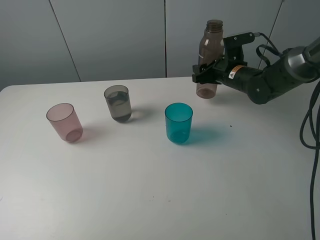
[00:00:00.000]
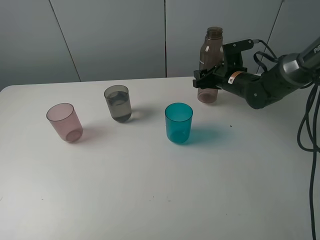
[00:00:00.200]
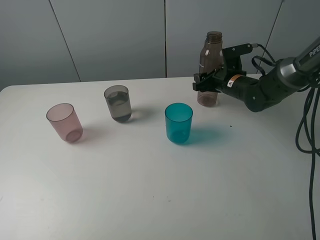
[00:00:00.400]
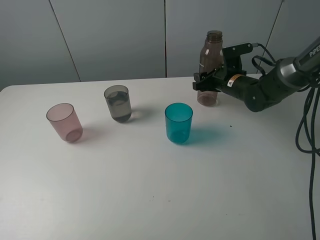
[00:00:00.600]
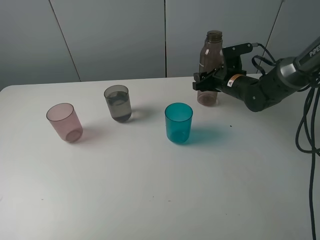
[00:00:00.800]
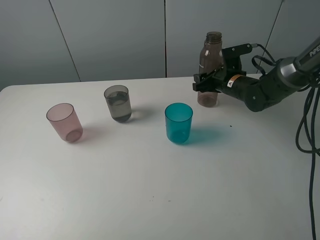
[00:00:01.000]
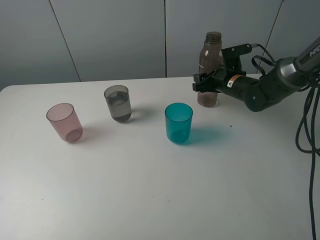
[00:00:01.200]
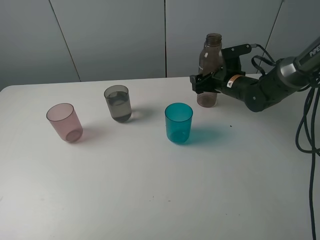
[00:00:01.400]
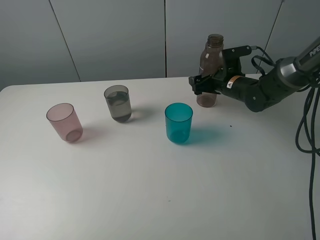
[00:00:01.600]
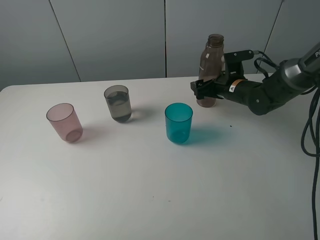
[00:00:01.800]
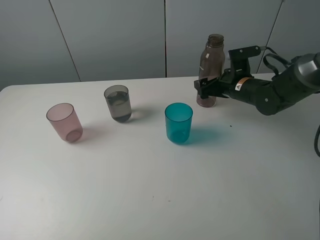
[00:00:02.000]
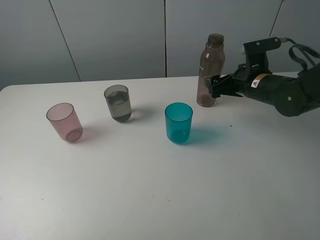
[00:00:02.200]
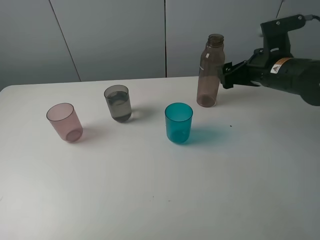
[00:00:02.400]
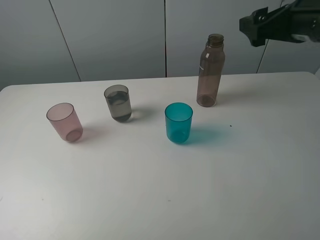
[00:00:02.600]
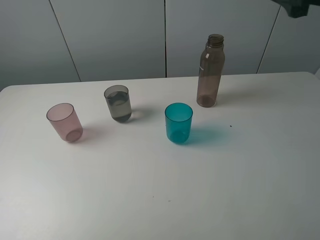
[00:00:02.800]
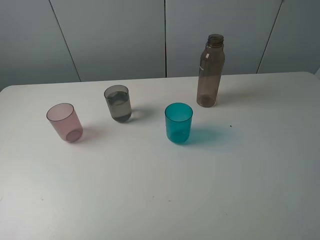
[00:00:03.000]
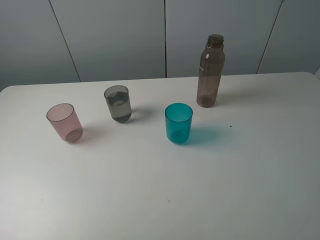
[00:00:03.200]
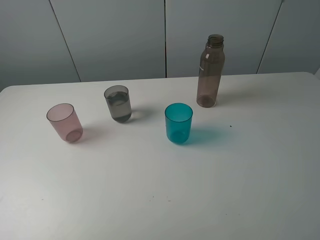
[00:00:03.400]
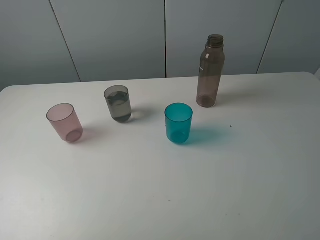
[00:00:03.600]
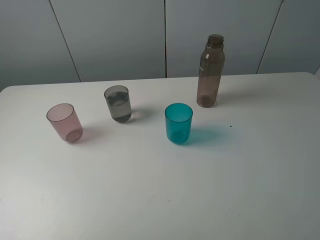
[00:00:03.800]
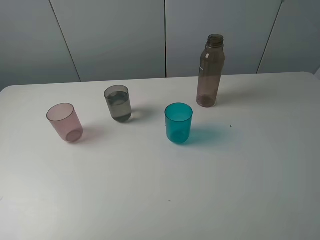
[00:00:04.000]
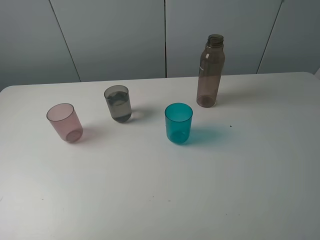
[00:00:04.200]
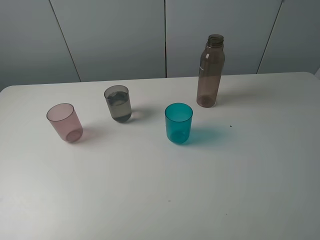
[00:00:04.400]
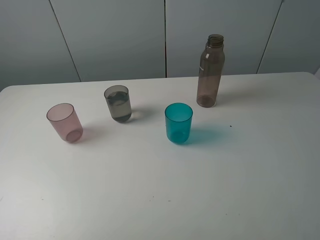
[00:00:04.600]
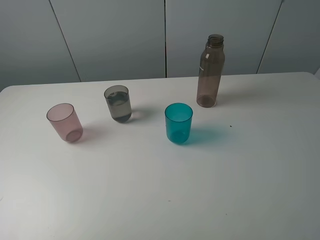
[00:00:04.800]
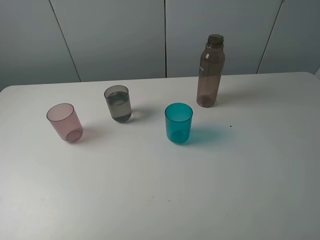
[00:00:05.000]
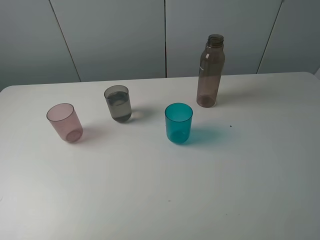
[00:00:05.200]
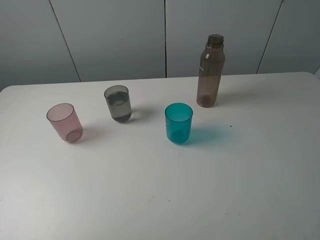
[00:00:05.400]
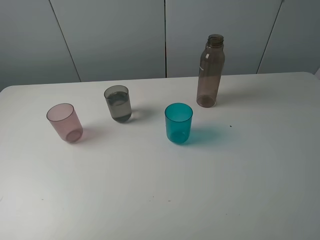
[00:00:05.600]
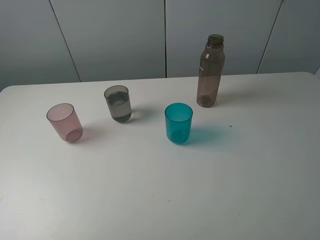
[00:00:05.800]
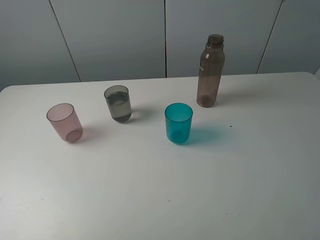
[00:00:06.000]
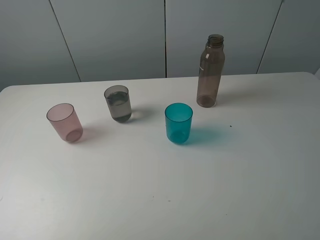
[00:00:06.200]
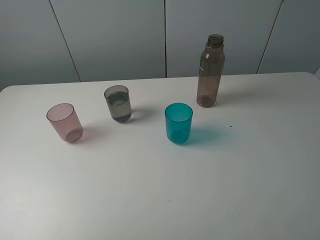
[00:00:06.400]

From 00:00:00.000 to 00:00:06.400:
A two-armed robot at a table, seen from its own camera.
Task of the whole recording: pick up the bottle filled with water and pour water into the middle cup of the three cups.
Step, from 00:00:00.000 to 00:00:02.000: Place the brown bottle with the right gripper.
From 00:00:00.000 to 00:00:01.600: The right gripper opens up.
From 00:00:01.600 to 00:00:03.200: The right gripper goes about 40 cm backward and upward.
